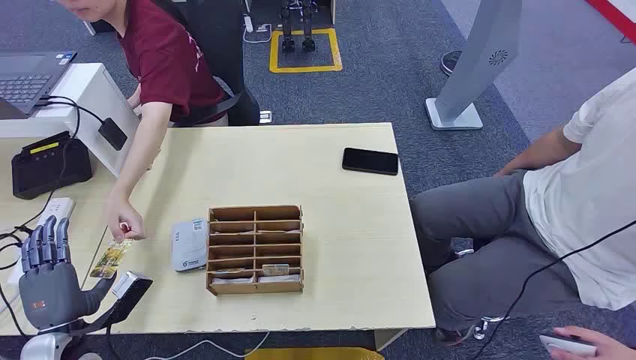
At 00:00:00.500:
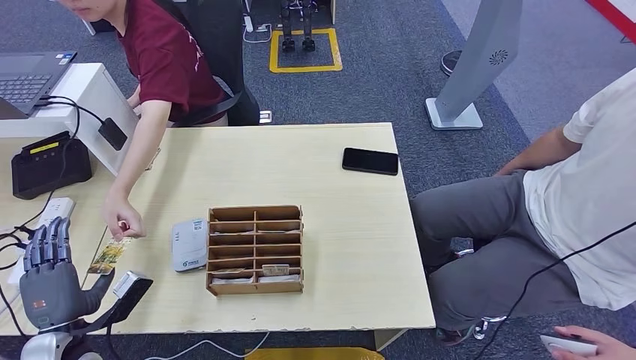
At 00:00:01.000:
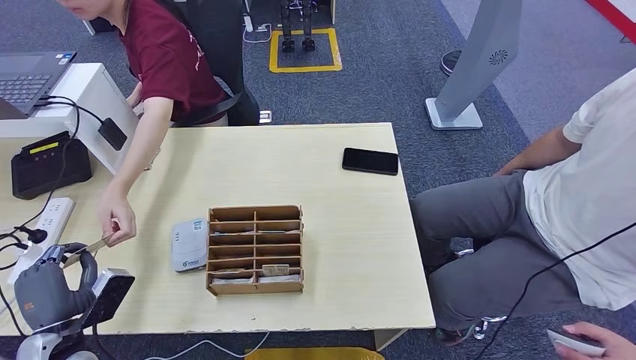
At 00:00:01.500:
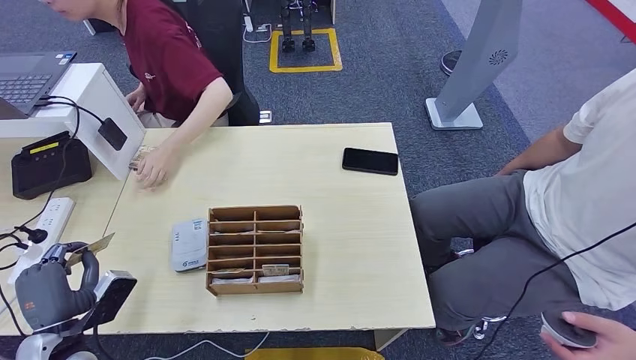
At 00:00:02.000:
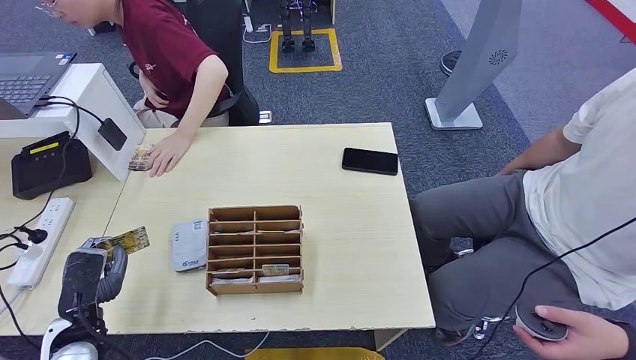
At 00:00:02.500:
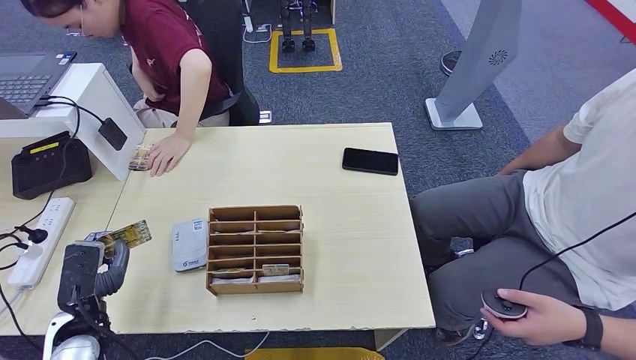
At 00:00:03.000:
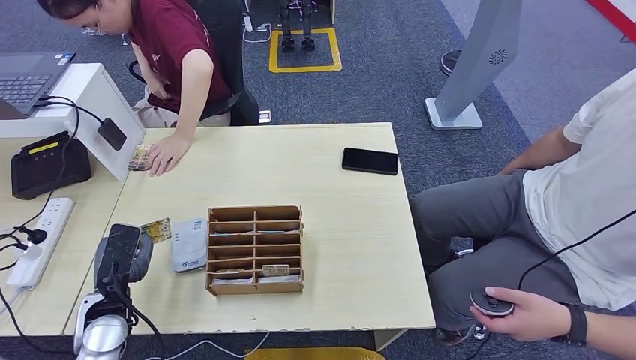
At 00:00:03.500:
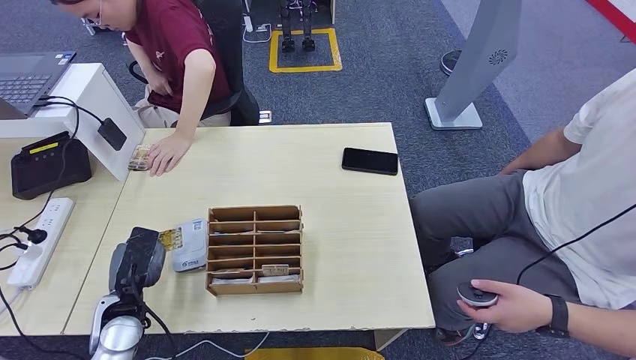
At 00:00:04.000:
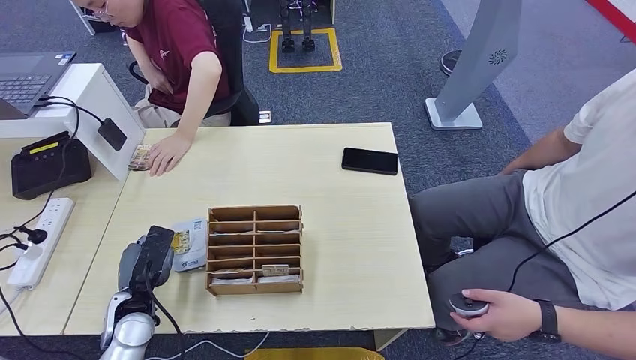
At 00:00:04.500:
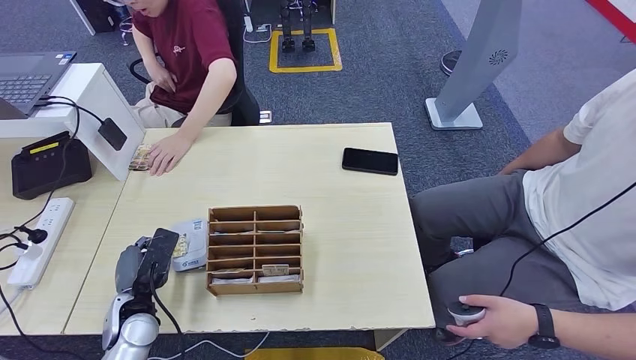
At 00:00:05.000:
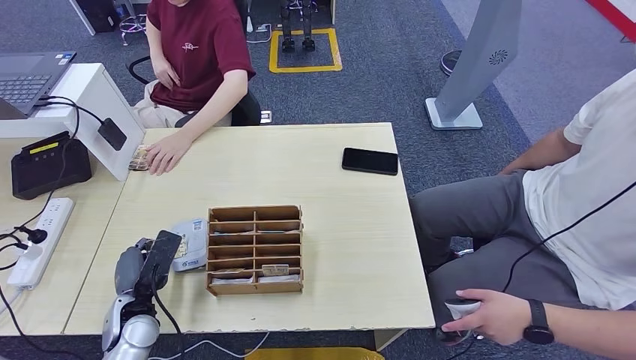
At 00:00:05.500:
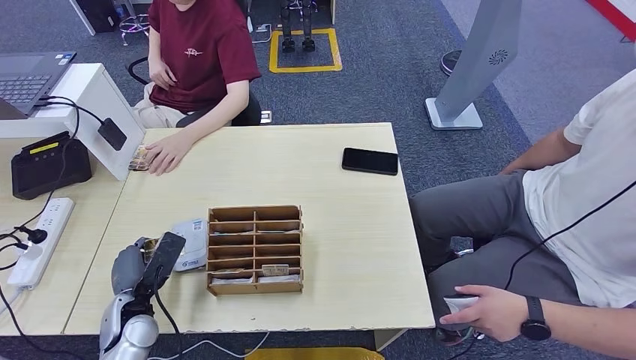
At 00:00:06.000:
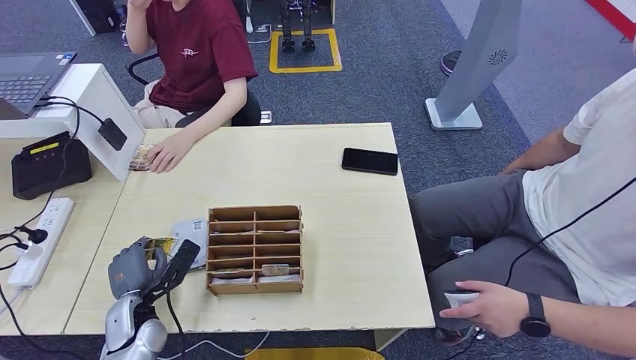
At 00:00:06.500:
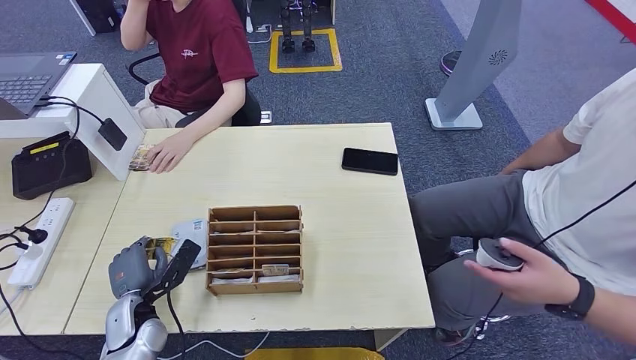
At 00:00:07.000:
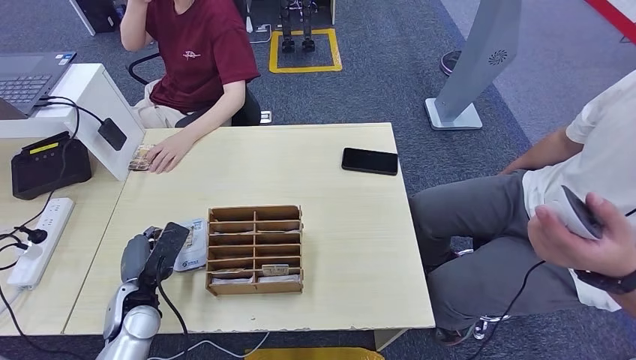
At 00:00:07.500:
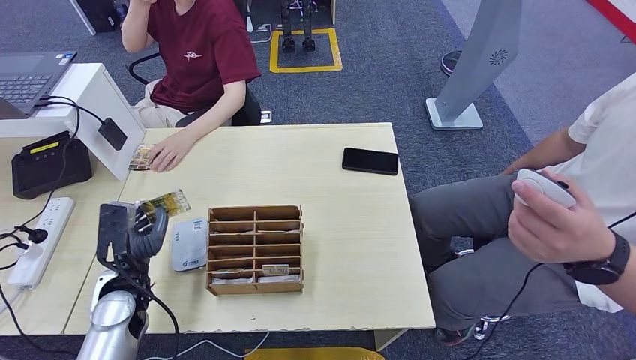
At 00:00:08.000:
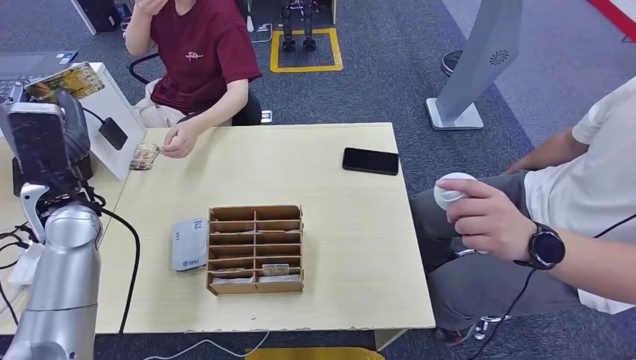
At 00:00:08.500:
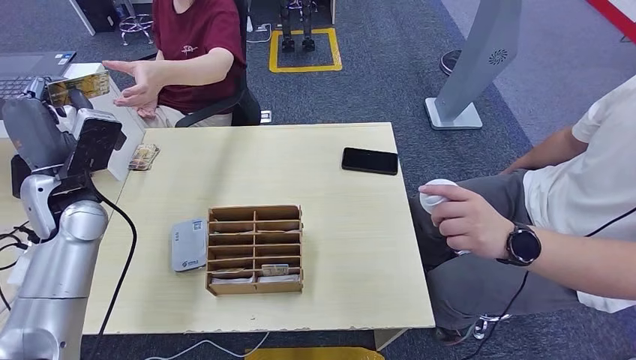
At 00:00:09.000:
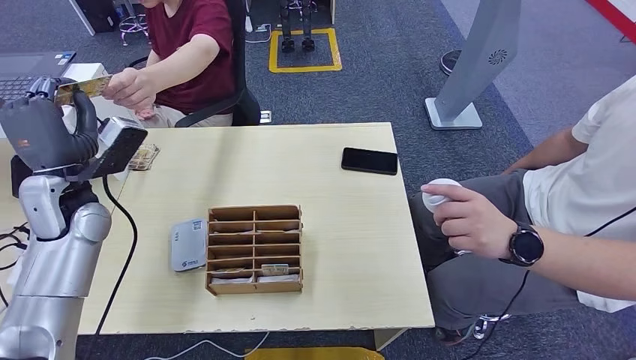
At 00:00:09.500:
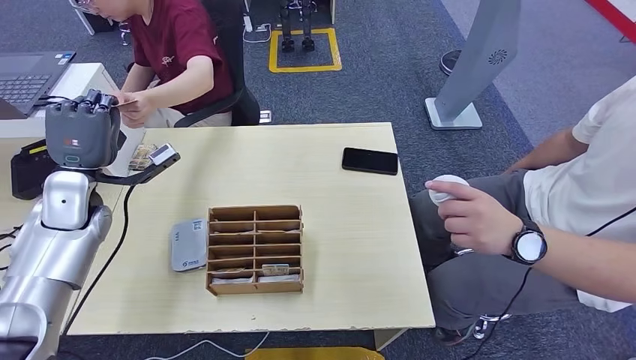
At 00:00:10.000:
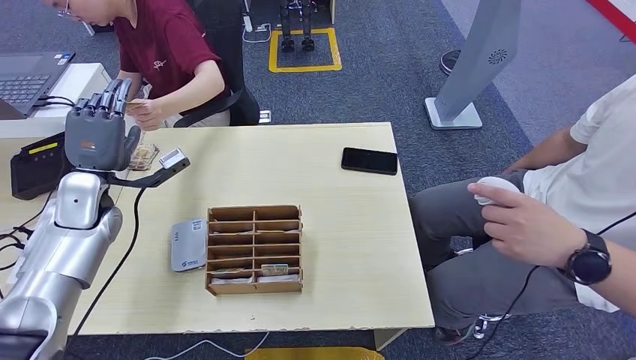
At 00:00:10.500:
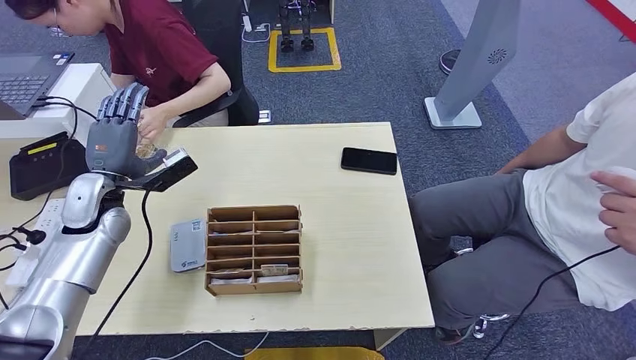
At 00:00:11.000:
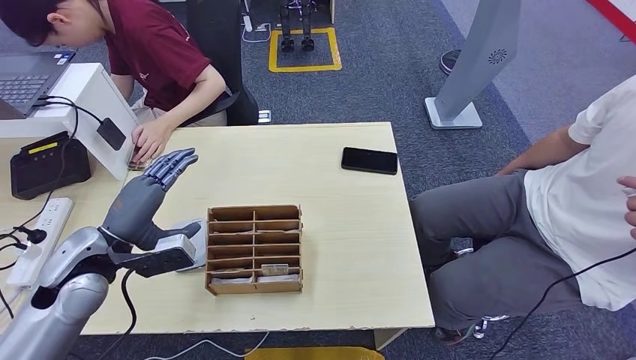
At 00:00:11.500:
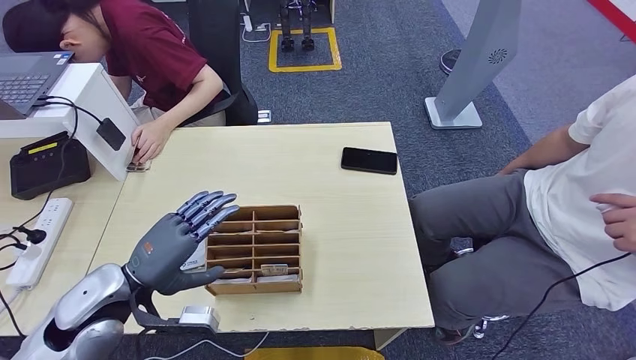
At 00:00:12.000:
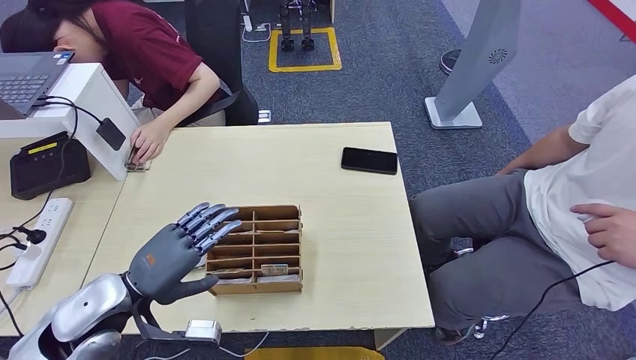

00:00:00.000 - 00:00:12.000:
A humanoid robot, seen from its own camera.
Step, 00:00:00.000 - 00:00:01.500: Take the ID card from the person's hand.
Step, 00:00:02.000 - 00:00:04.500: Place the ID card on the card reader.
Step, 00:00:05.000 - 00:00:10.000: Hand the ID card to the person.
00:00:02.000 - 00:00:04.000: The left hand travels to the right by some 5 cm.

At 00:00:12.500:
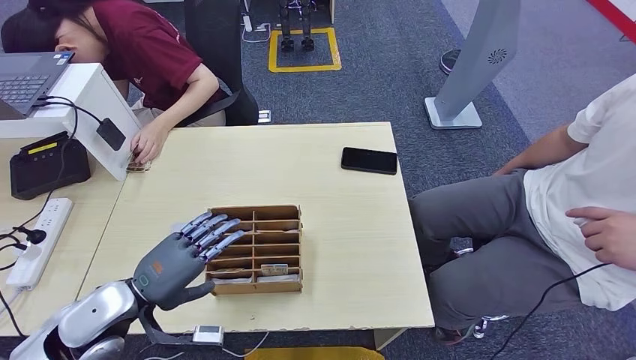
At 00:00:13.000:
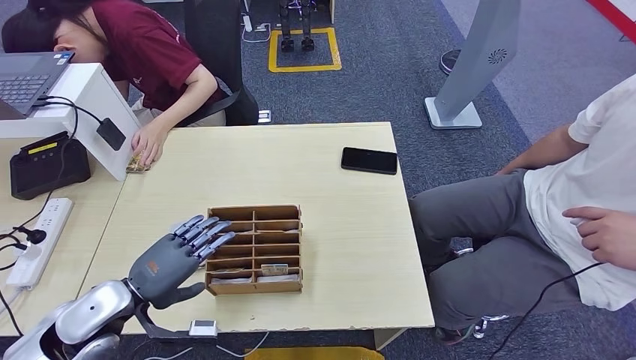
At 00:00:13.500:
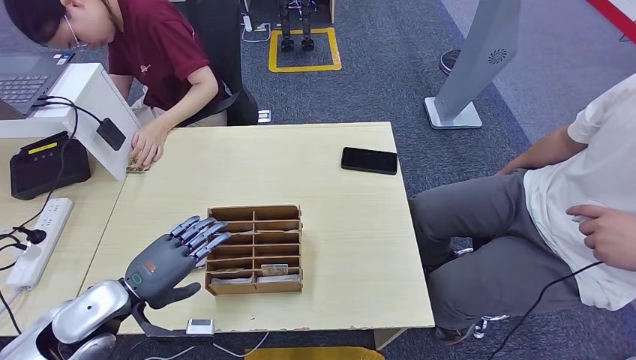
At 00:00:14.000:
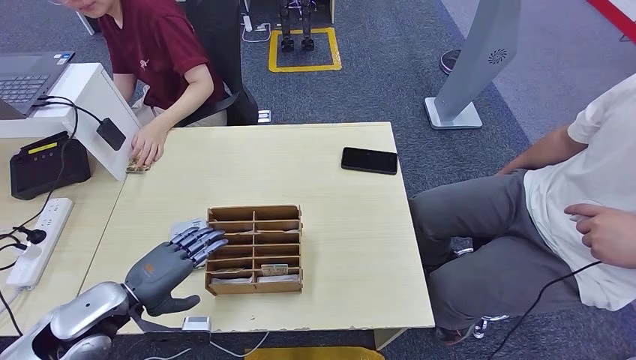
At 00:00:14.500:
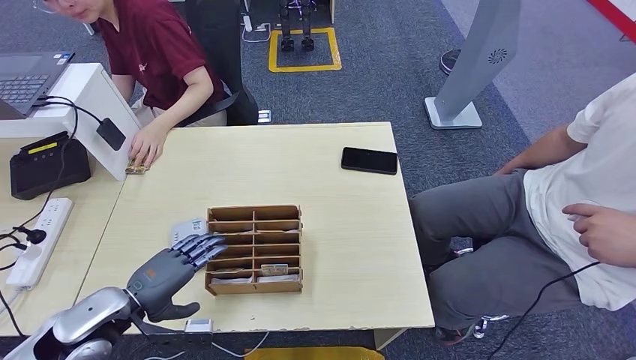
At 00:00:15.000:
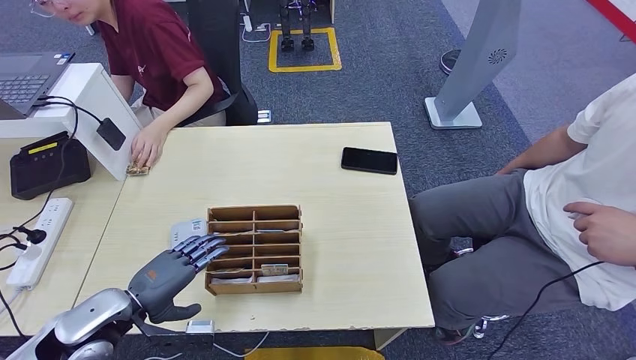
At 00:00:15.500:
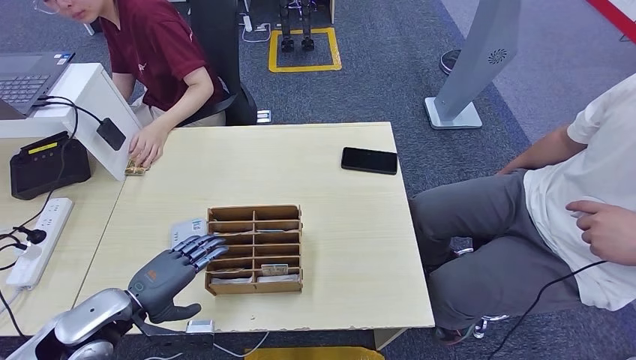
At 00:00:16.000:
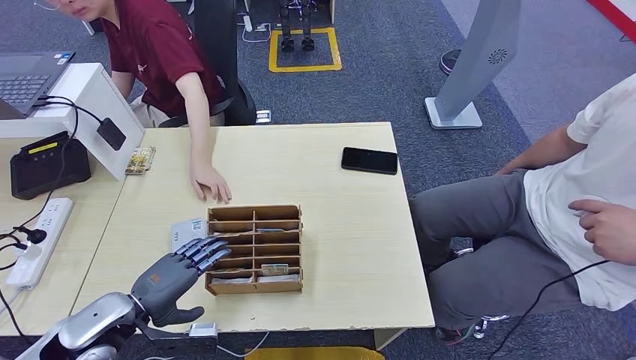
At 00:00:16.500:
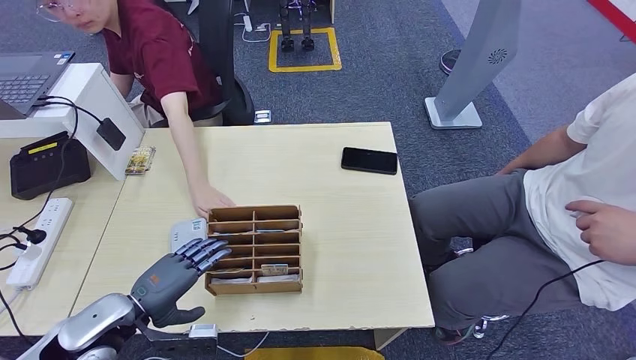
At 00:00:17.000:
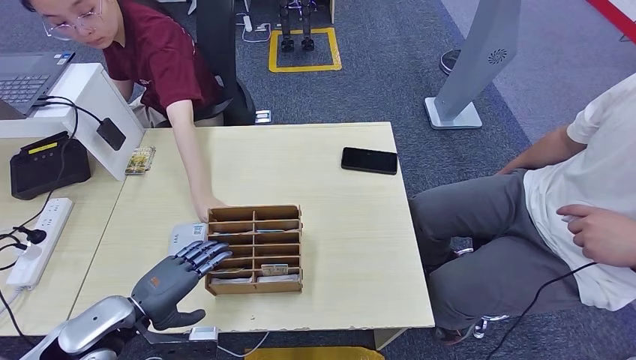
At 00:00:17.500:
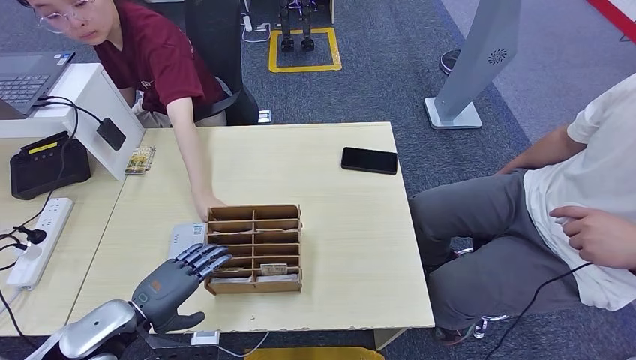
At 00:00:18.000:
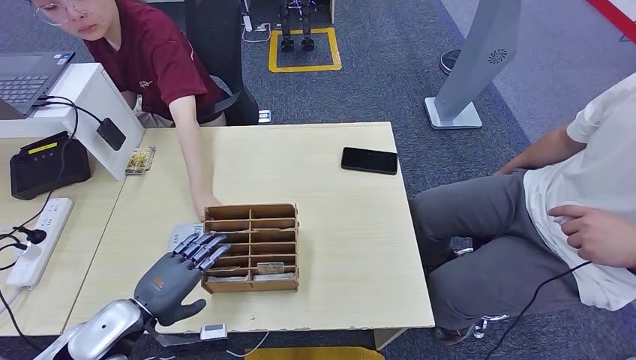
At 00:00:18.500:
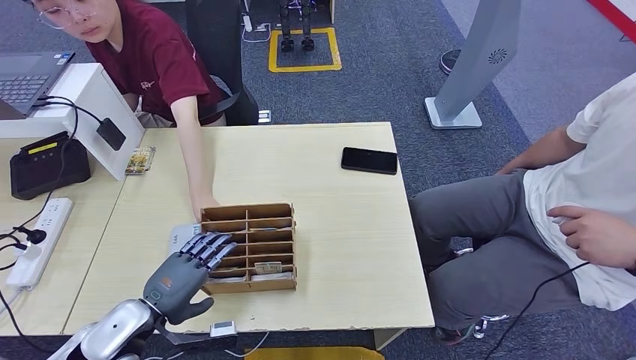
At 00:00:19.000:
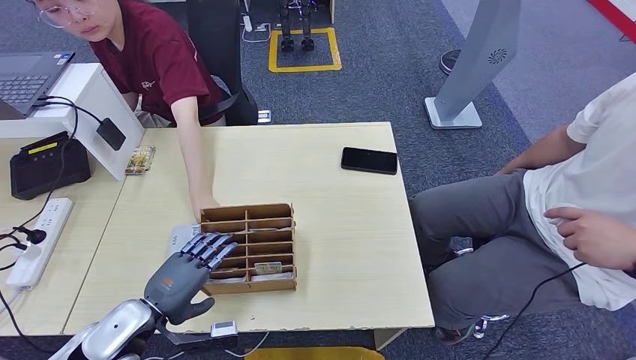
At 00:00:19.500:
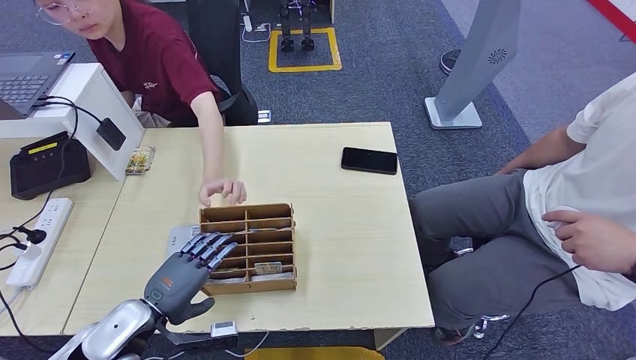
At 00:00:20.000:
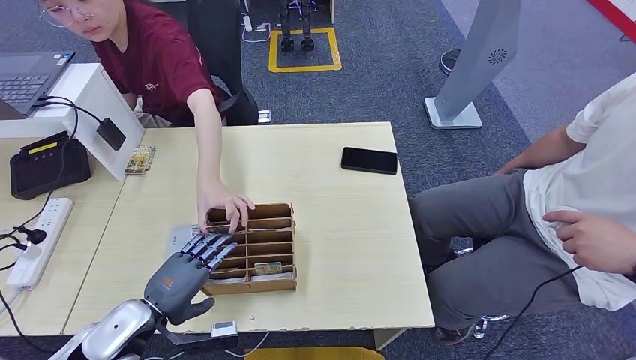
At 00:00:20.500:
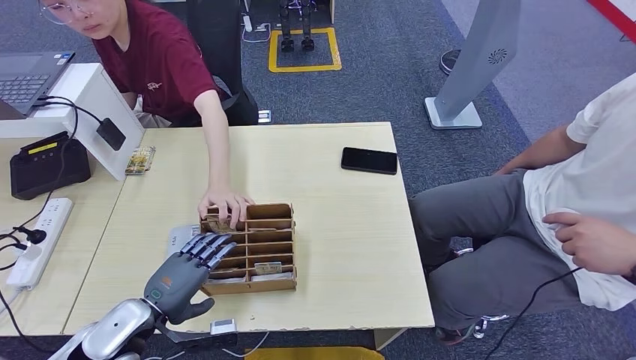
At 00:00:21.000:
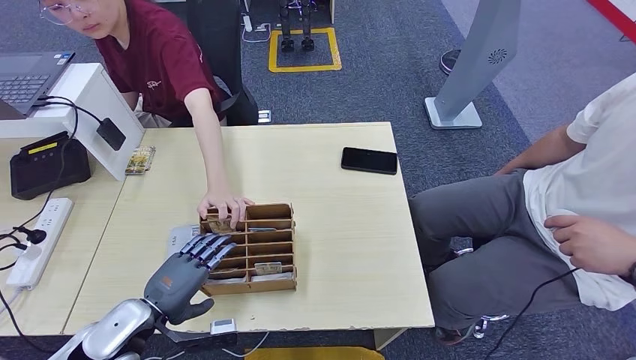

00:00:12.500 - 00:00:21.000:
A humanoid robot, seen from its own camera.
00:00:12.500 - 00:00:14.500: The hands make only small movements.
00:00:14.500 - 00:00:16.500: Neither hand changes place.
00:00:16.500 - 00:00:19.000: The hands move only a little.
00:00:19.000 - 00:00:21.000: The two hands keep their place.
